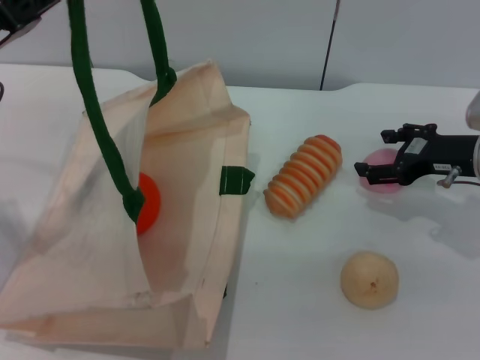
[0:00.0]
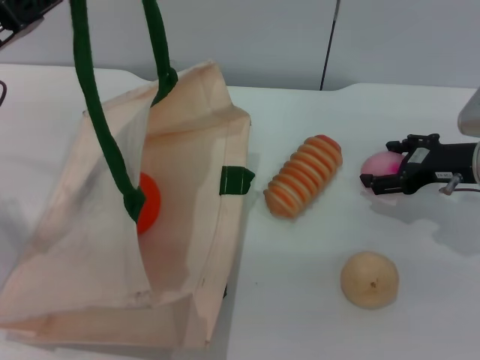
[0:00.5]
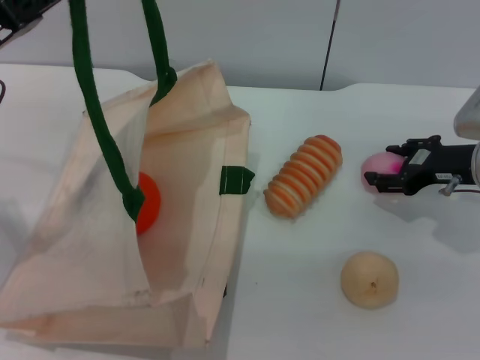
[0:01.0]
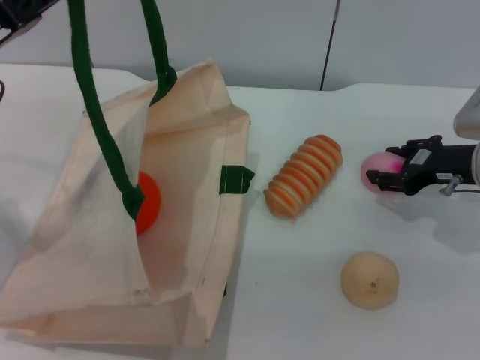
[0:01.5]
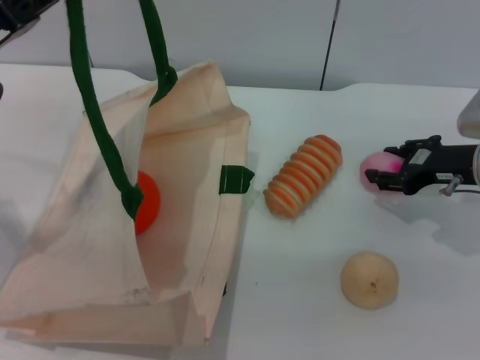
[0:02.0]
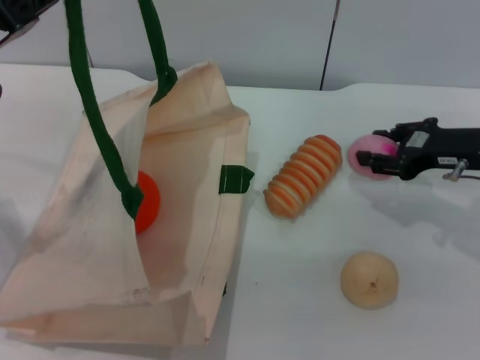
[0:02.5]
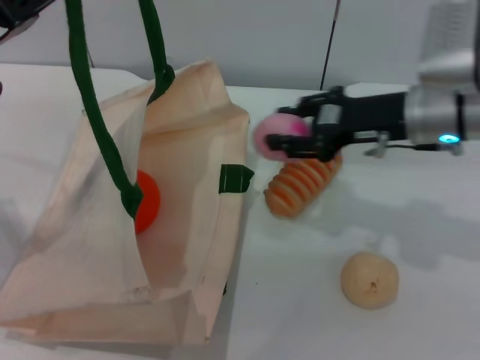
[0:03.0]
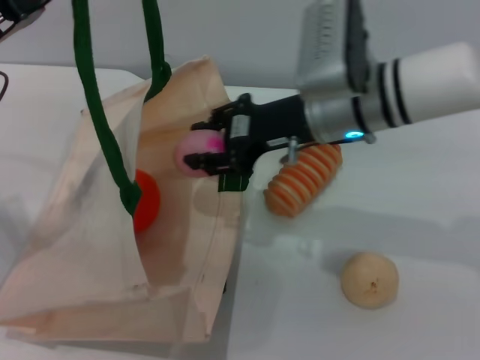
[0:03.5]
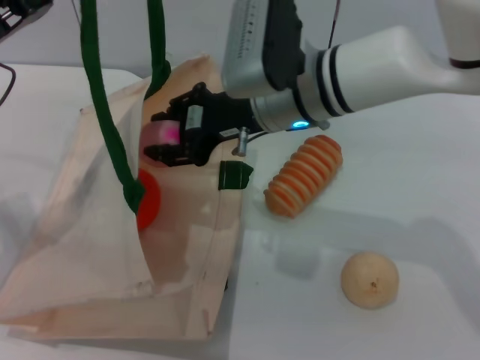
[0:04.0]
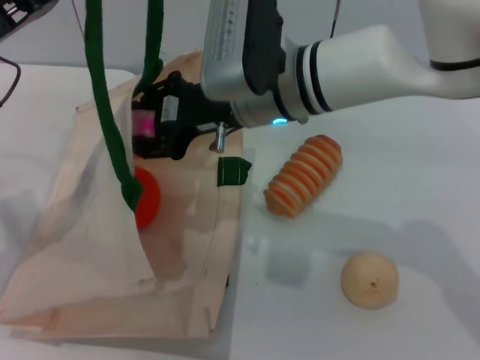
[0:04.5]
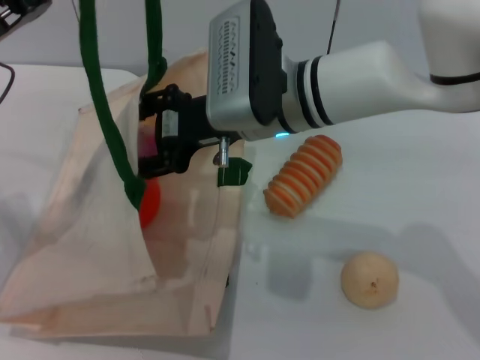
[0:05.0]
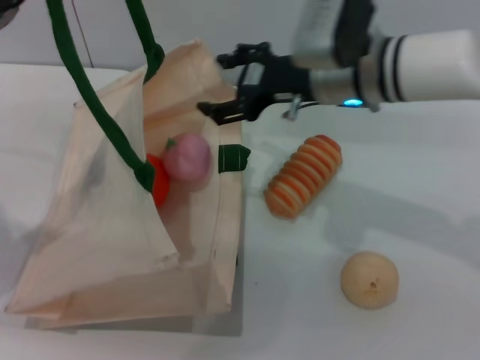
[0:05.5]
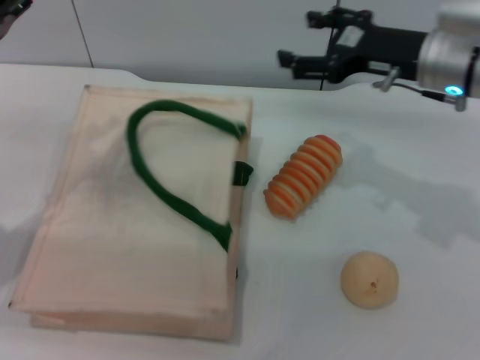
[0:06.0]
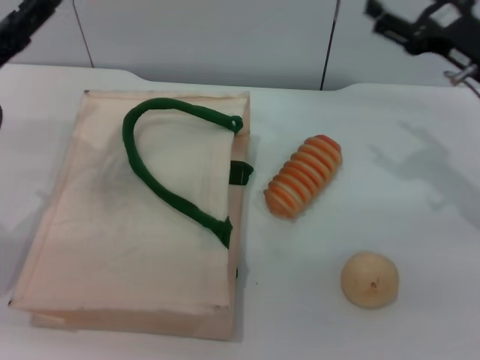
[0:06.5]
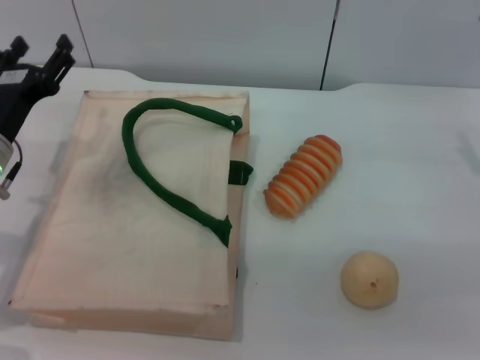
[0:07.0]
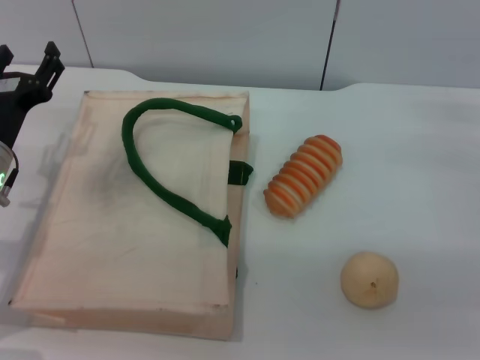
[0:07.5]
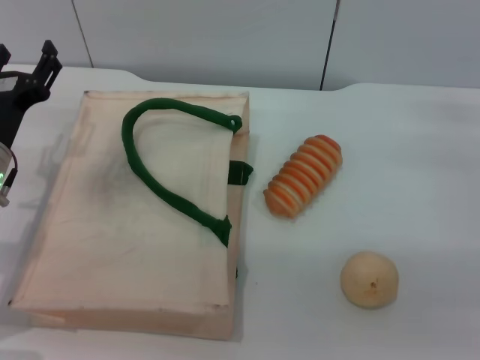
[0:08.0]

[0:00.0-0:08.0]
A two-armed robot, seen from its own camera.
Task of the whole recording: pick up the orange and peach from the table and place it in the white handbag.
Step, 0:00.0 to 0:02.5: Pick up the peach with the right gripper.
Step, 0:03.0 to 0:05.5: Place the peach into the woven bag with the right gripper.
Step, 0:06.0 to 0:06.5: Lower the woven bag with the left gripper to close it.
0:00.0 to 0:02.0: The right gripper closes.
0:02.0 to 0:04.0: The right gripper travels to the left by approximately 25 cm.
0:04.0 to 0:06.0: The right gripper heads to the right, covering about 15 cm, and opens.
0:06.0 to 0:08.0: The left gripper moves downward and to the right, about 10 cm, and opens. The right gripper travels to the right, downward and backward by some 15 cm.
